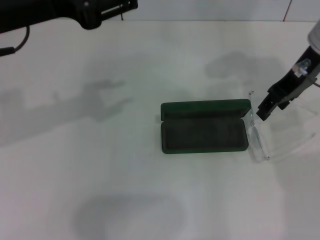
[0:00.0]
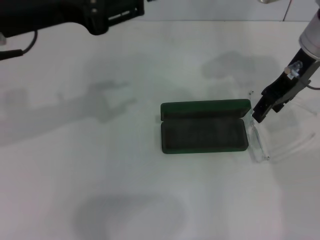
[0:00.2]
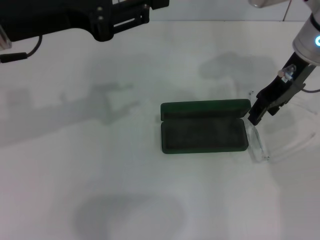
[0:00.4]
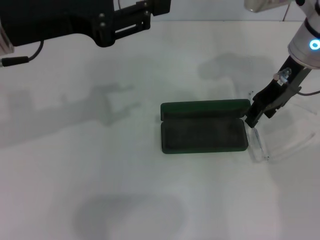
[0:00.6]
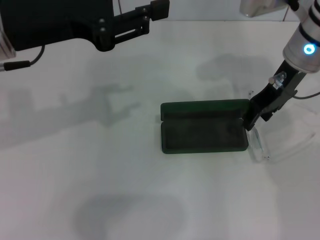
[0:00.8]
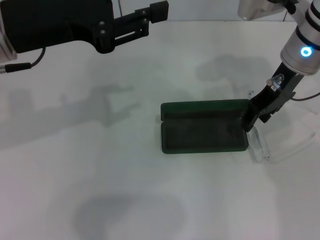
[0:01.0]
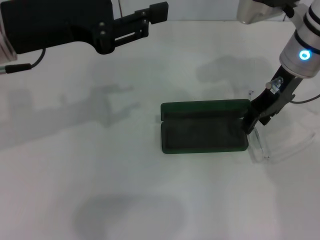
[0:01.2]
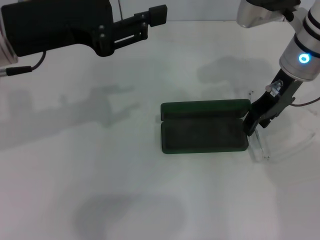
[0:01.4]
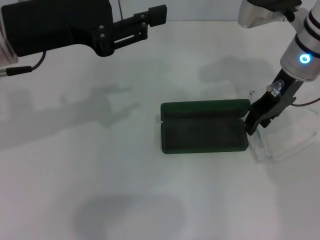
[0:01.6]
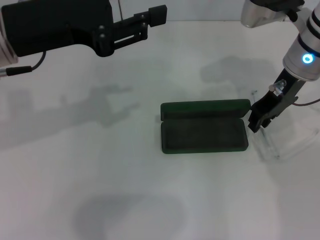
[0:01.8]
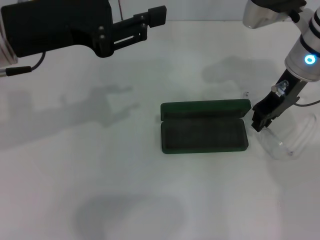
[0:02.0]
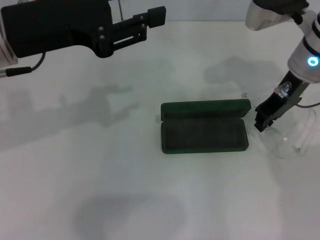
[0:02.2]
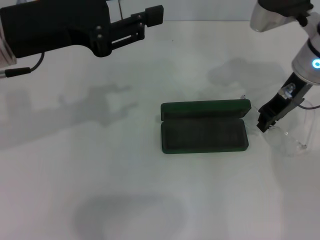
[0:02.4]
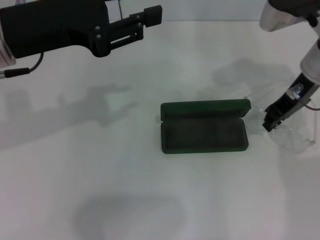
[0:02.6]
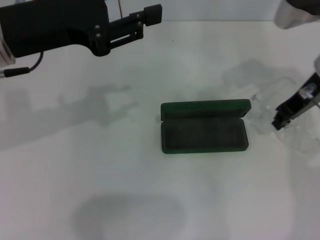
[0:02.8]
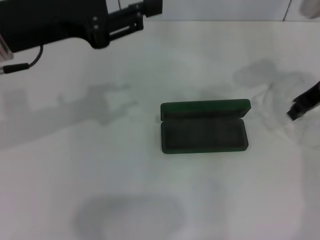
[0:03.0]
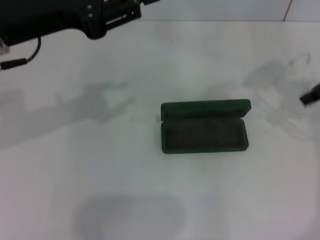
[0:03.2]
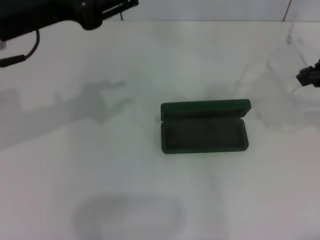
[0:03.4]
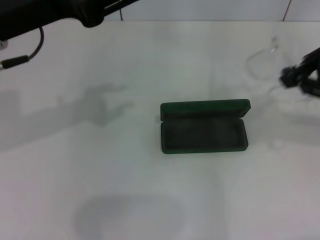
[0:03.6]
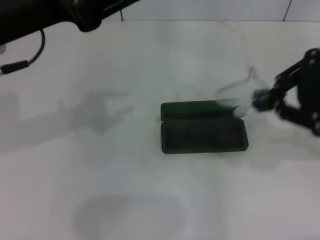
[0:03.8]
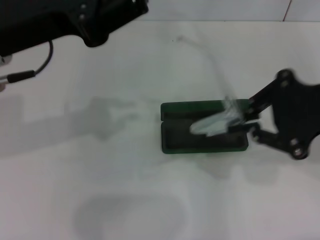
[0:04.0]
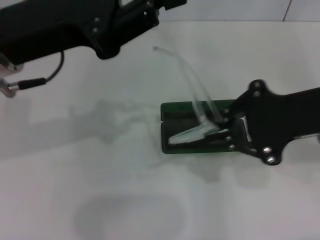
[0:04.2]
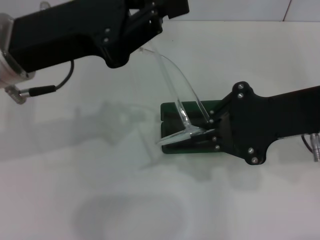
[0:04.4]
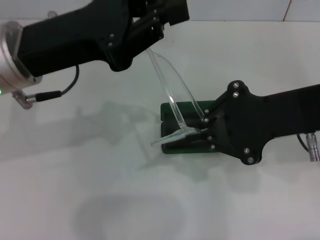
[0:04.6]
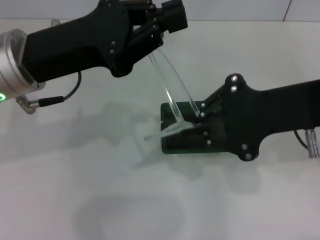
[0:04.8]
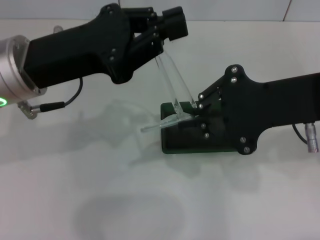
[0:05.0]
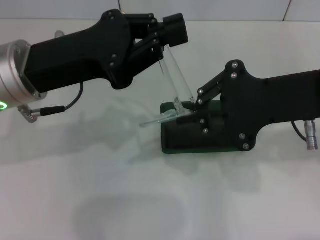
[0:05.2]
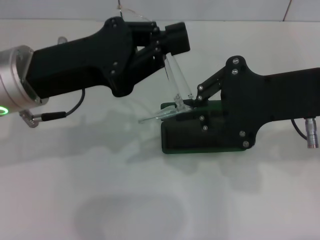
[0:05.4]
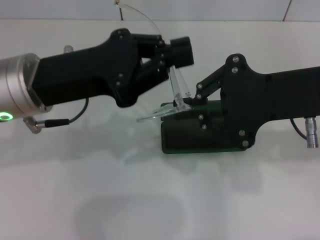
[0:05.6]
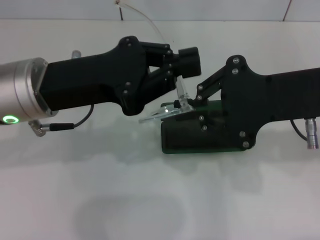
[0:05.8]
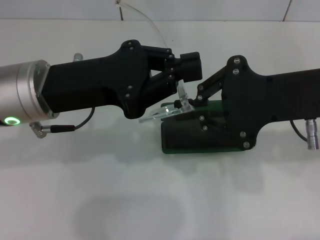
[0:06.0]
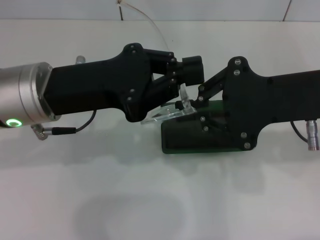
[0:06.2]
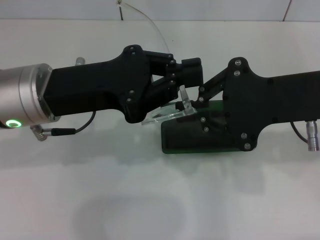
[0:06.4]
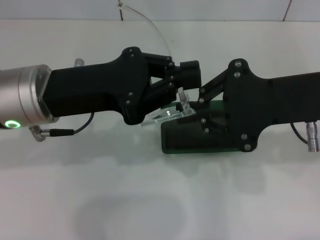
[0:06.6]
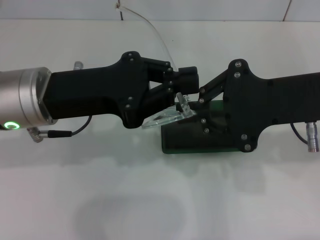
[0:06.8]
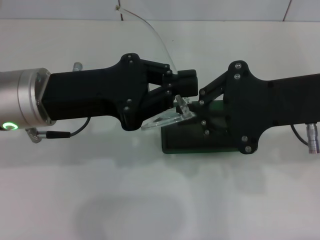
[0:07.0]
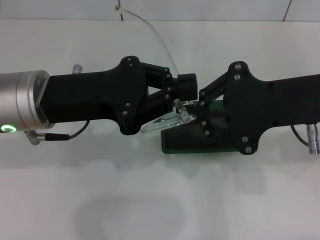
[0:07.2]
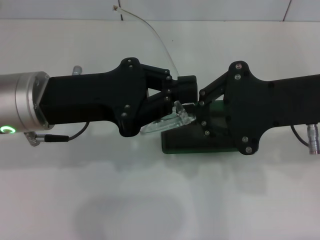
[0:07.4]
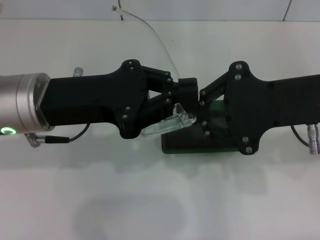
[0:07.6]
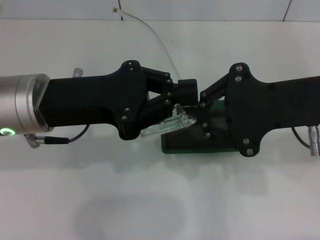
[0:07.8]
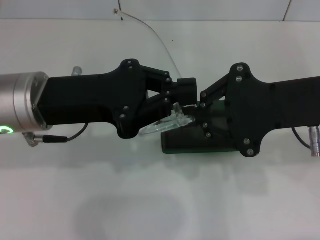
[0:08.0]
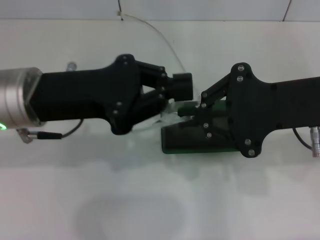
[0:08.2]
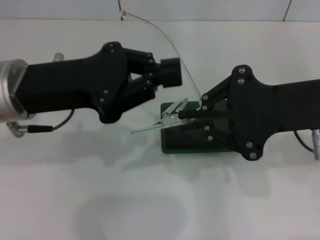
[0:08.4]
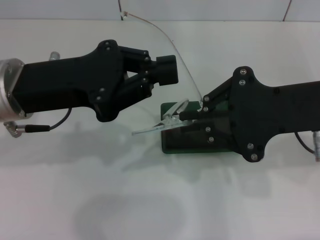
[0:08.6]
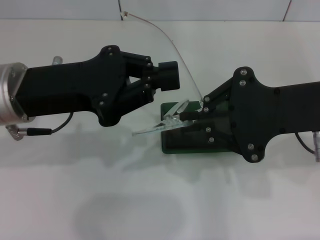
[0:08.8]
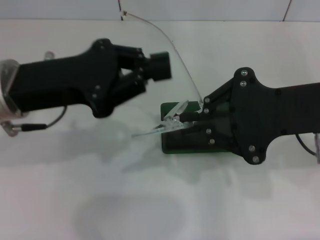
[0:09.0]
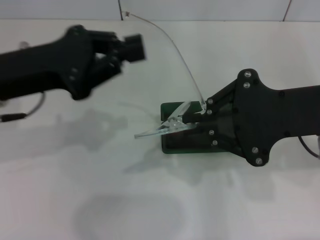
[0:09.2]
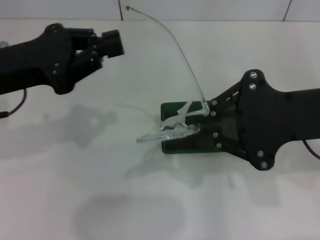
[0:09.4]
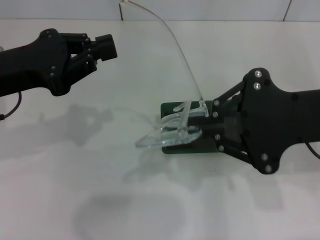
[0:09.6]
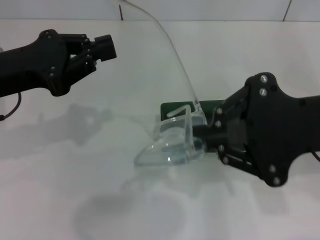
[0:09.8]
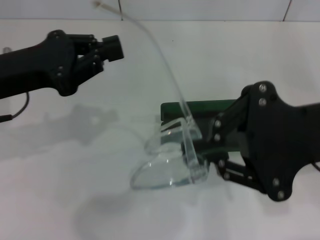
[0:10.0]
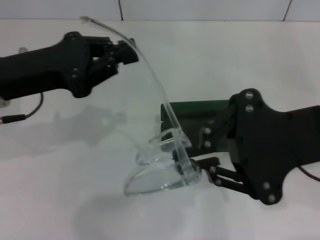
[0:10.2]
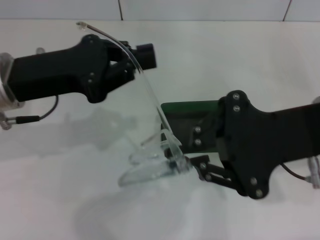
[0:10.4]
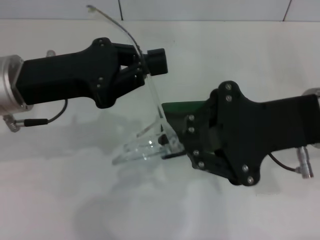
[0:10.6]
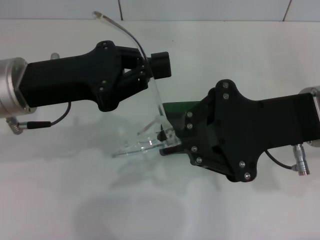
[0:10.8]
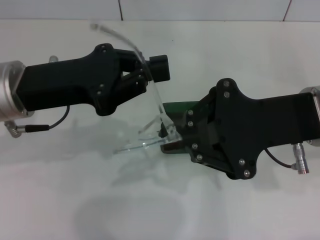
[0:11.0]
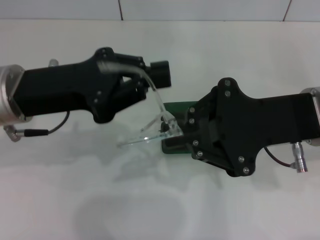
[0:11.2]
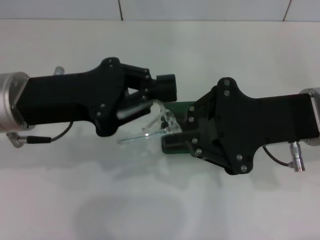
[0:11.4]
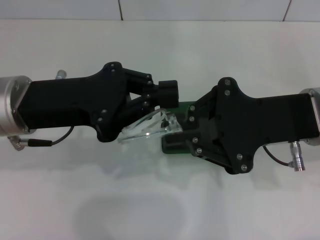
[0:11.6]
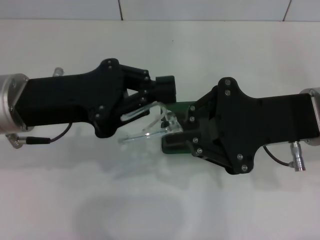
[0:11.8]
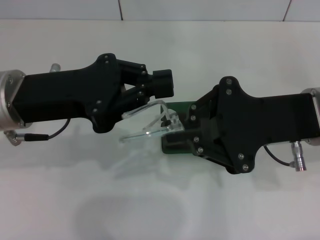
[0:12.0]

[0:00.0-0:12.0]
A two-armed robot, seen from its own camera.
Step, 0:00.0 to 0:02.4: Grab the eyeglass frame with your right hand.
0:00.0 to 0:01.6: The grippers stay close to where they were, moving slightly.
0:01.6 to 0:03.0: The right gripper heads to the right, covering approximately 10 cm, and closes its fingers.
0:03.0 to 0:04.4: The right gripper moves backward, about 10 cm.
0:06.0 to 0:07.6: Both grippers stay put.
0:07.6 to 0:09.0: There are only small adjustments of the grippers.

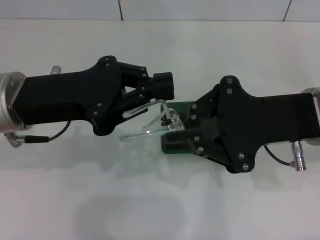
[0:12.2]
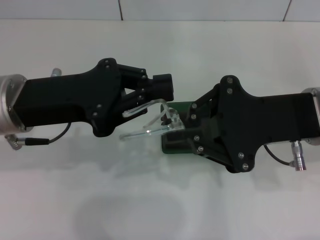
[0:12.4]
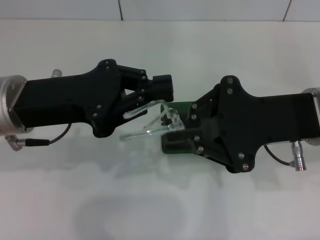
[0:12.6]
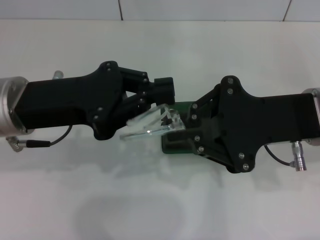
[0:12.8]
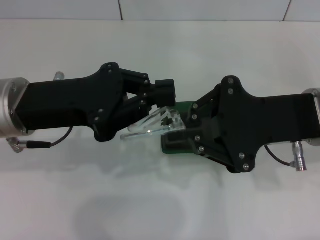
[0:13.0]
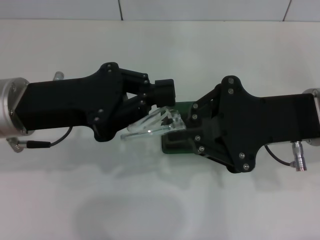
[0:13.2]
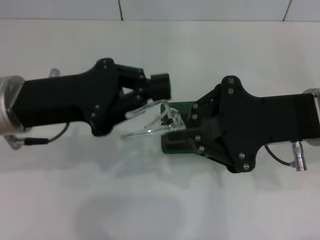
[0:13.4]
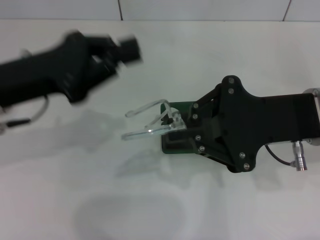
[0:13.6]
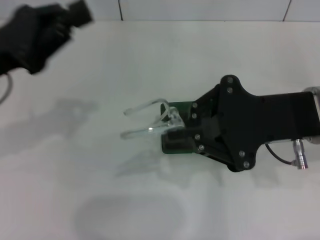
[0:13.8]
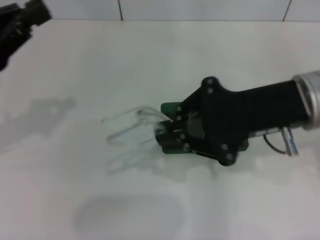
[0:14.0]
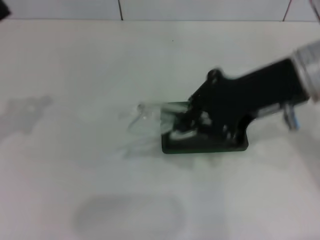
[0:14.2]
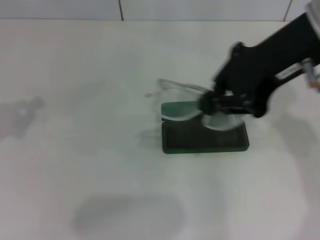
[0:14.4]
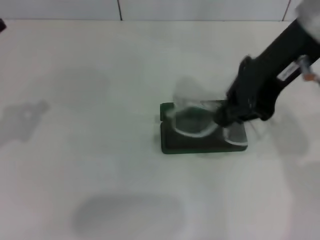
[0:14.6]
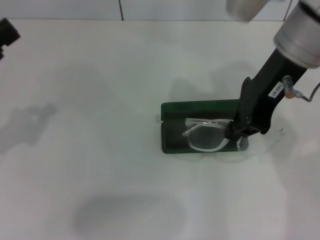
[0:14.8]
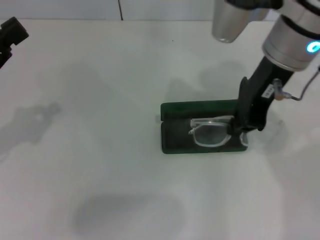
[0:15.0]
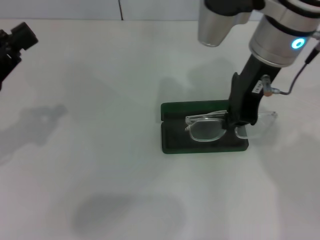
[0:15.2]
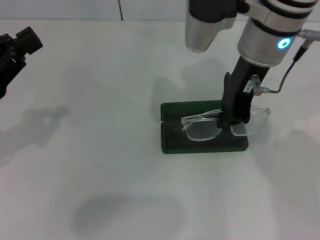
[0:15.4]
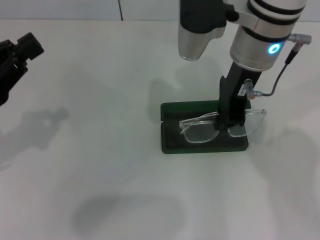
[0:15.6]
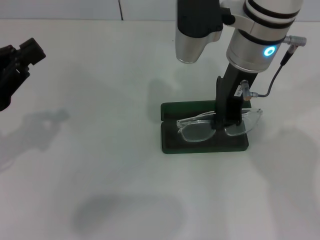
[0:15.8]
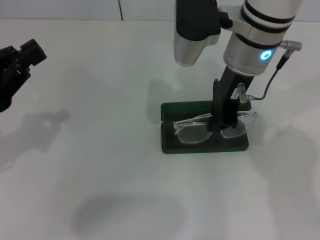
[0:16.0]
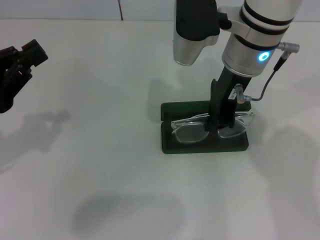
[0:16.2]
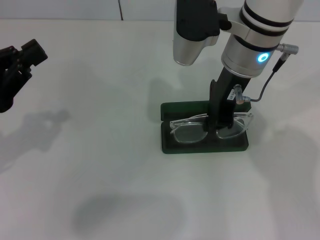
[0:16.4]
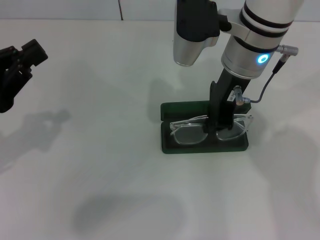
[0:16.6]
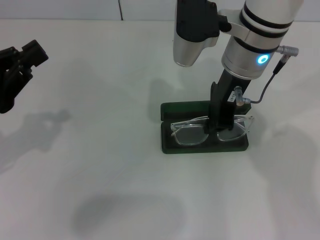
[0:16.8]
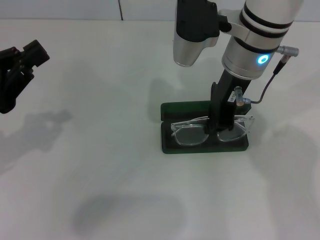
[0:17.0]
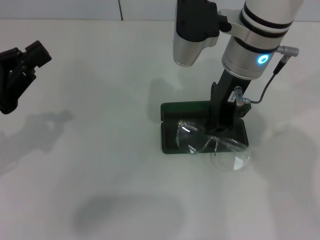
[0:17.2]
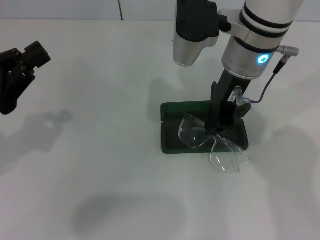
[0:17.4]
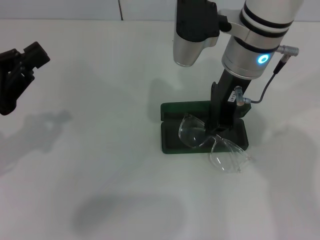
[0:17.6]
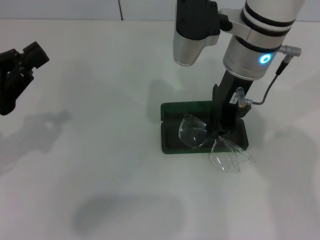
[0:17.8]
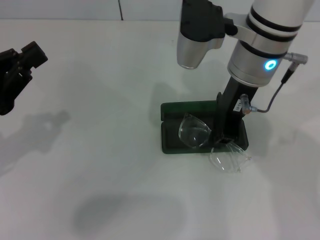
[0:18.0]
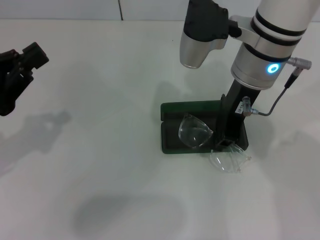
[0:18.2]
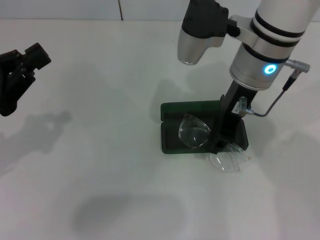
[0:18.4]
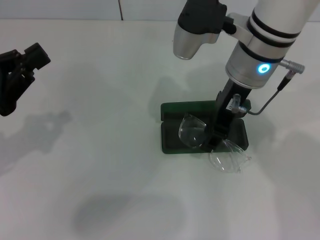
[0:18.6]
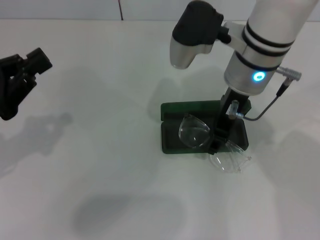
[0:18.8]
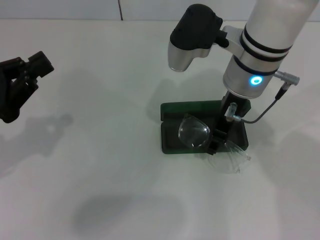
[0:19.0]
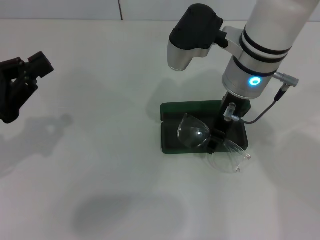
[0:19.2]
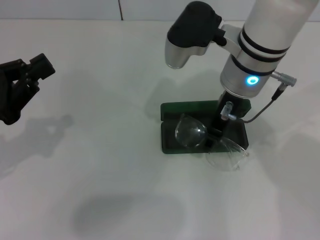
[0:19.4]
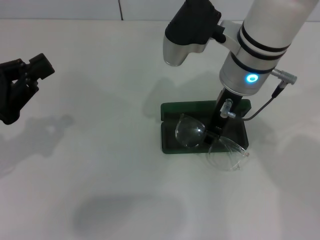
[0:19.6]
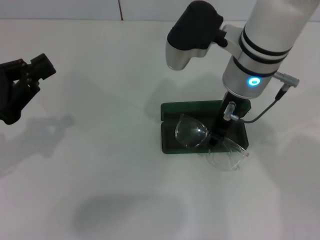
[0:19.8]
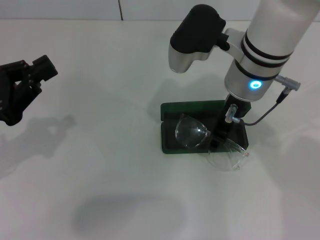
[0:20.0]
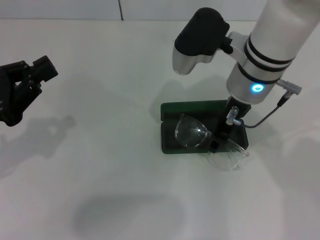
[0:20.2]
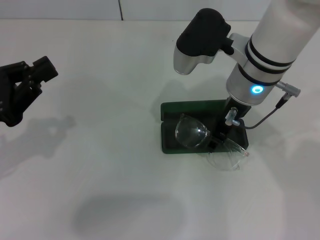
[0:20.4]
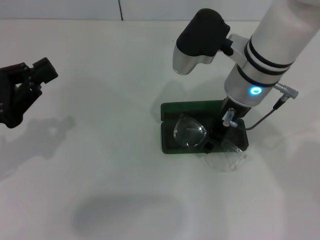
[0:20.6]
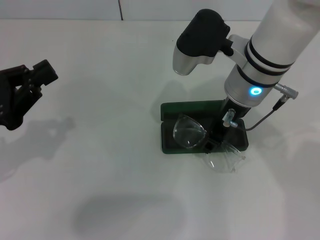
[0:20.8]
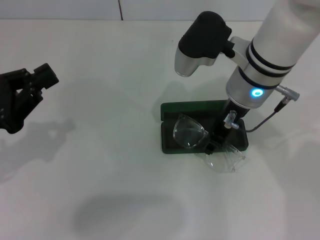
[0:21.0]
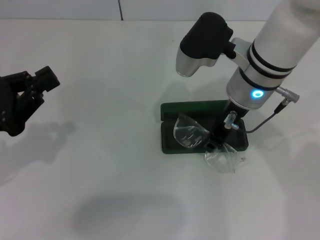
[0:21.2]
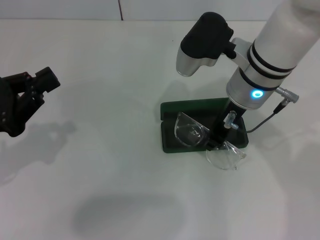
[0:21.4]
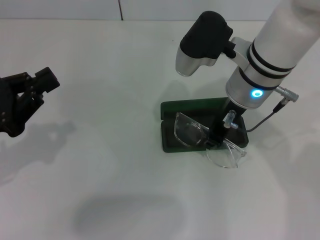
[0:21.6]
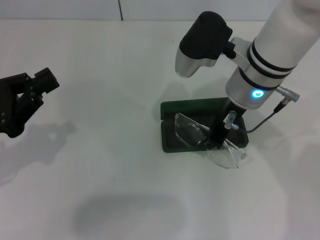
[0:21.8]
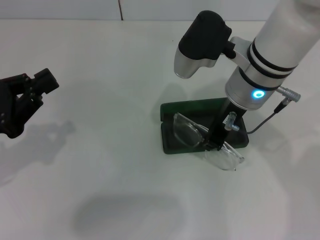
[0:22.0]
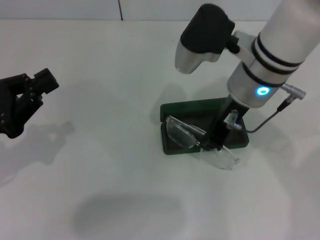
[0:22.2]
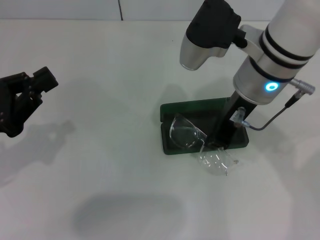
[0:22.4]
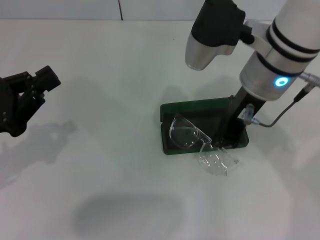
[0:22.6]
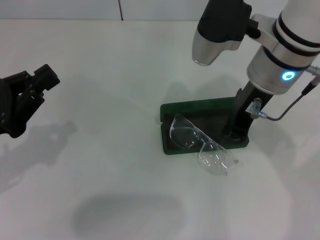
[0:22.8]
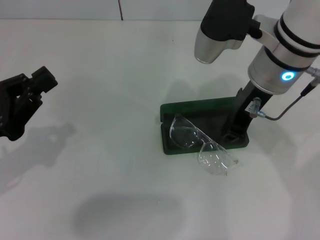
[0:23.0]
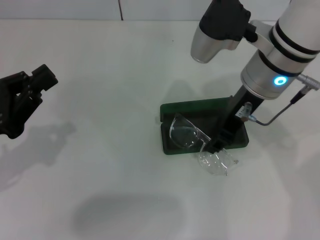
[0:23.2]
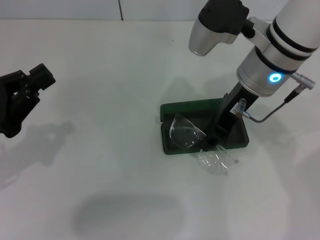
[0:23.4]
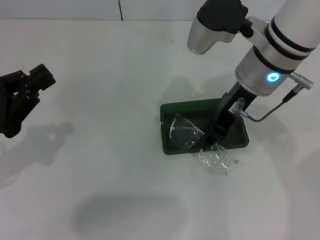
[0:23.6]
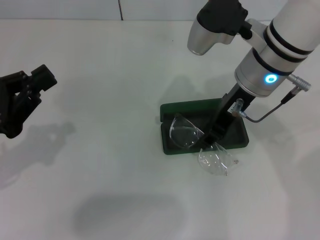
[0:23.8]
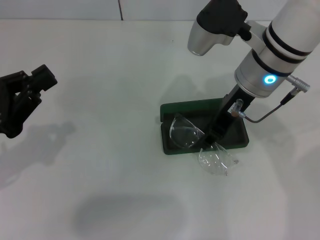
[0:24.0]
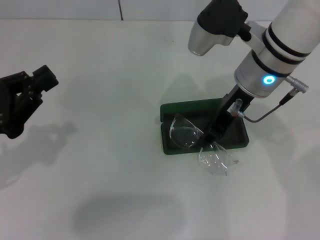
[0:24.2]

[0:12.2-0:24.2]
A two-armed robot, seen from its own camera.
0:12.2 to 0:13.8: The left gripper goes some 5 cm to the left.
0:13.8 to 0:15.2: The right gripper shifts roughly 15 cm forward, to the left and upward. Meanwhile the left gripper moves approximately 5 cm.
0:15.2 to 0:18.2: The grippers make only small movements.
0:18.2 to 0:19.8: The right gripper opens its fingers.
0:19.8 to 0:21.2: The grippers move only a little.
0:21.2 to 0:22.6: The right gripper ends up about 5 cm from where it was, and closes up.
0:22.6 to 0:24.2: The right gripper opens its fingers.
